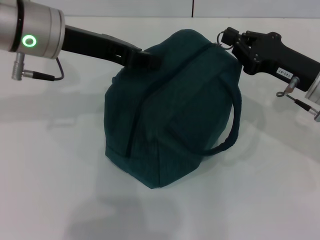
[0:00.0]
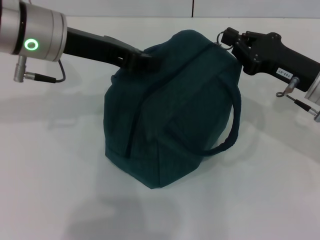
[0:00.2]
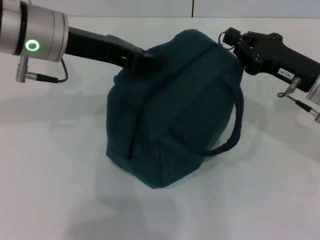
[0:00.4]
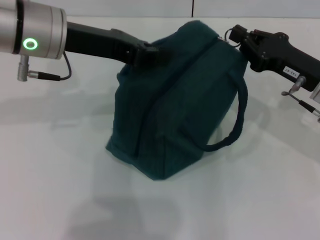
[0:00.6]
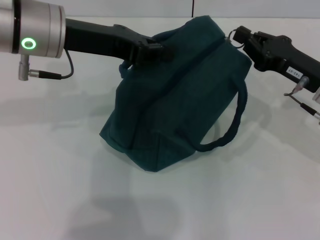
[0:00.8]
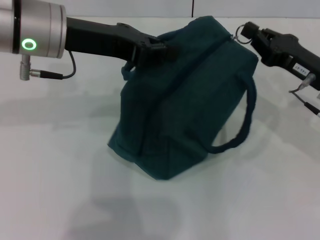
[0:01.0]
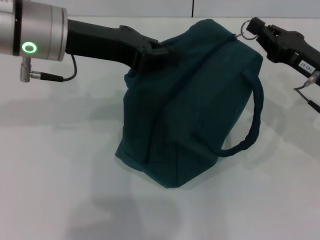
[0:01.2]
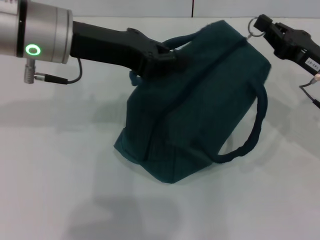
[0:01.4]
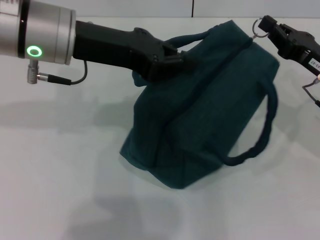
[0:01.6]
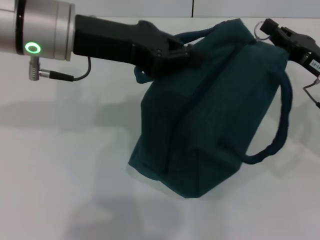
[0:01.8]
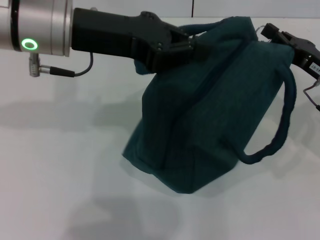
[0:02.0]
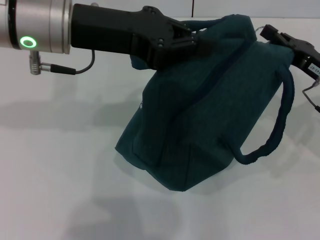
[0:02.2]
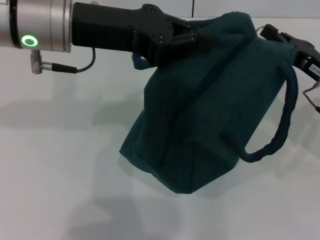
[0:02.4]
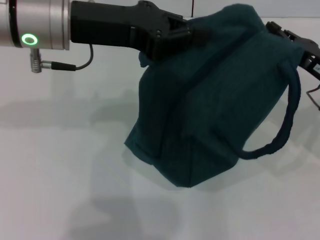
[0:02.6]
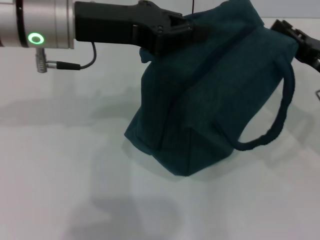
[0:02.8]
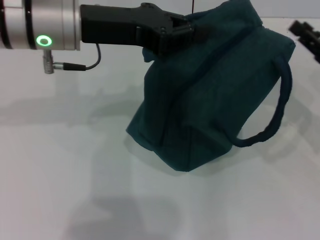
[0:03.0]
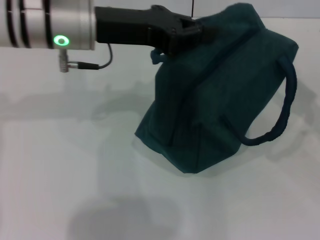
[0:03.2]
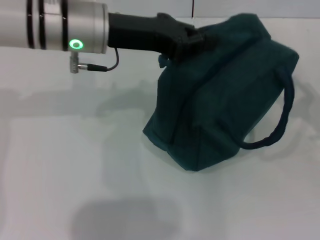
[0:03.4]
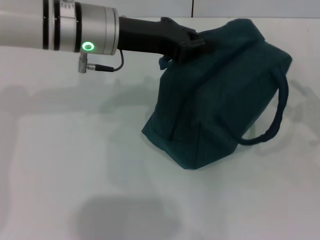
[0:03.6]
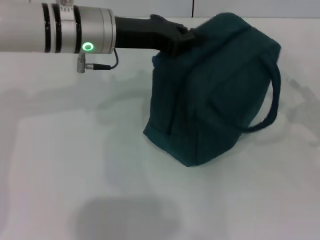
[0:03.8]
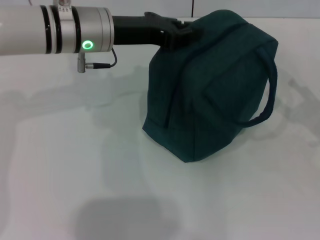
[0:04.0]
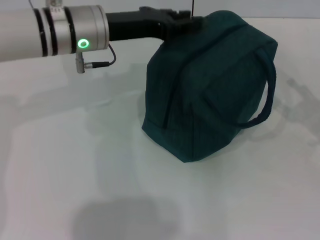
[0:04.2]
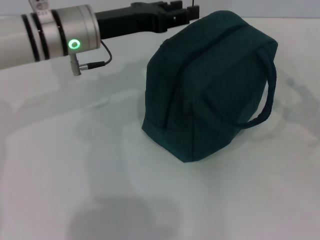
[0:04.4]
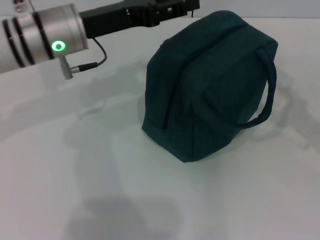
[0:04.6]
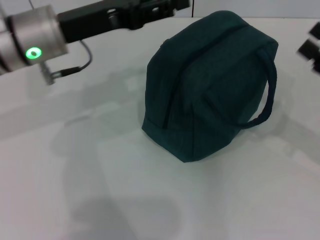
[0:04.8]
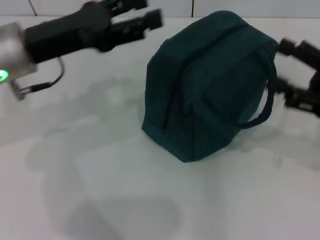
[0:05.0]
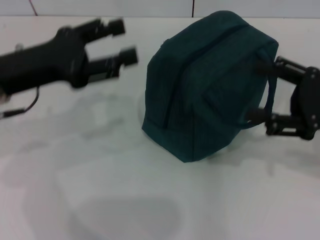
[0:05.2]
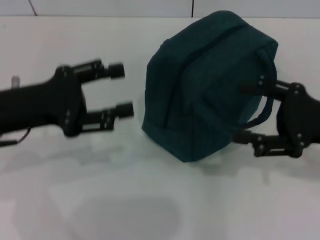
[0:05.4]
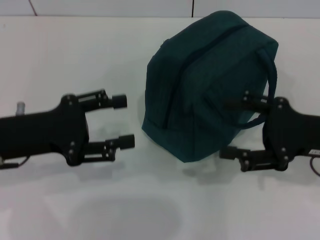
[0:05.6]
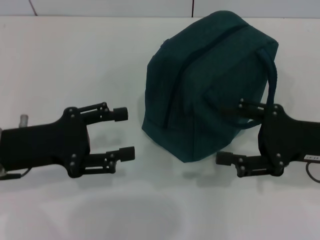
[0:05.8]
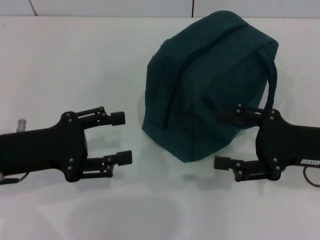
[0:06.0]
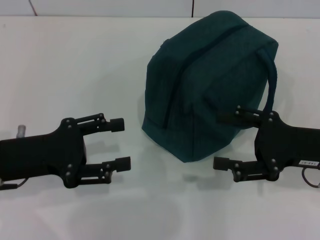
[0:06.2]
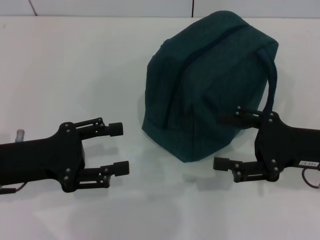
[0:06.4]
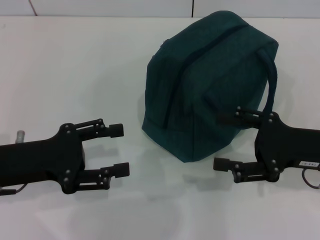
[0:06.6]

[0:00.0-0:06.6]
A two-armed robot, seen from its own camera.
Step, 0:00.0 to 0:02.8: Zip up the lunch bag with your right hand.
Step, 0:03.0 to 0:04.2: Hold the lunch bag with your left hand.
0:01.6 to 0:03.2: The right gripper goes roughly 5 cm to the right, and opens its fingers.
0:03.2 to 0:05.0: The right gripper shifts by roughly 5 cm, and opens up, while the left gripper moves to the left, roughly 5 cm, and opens.
0:05.0 to 0:06.6: The left gripper heads backward and downward, covering some 10 cm. Meanwhile the right gripper shifts by approximately 5 cm.

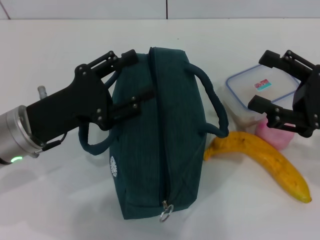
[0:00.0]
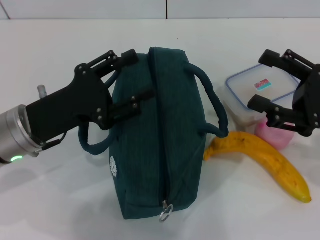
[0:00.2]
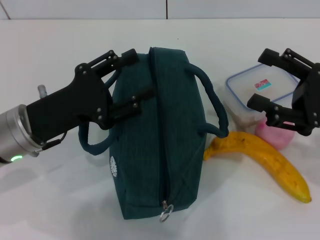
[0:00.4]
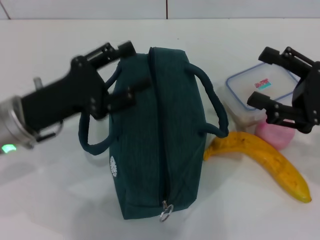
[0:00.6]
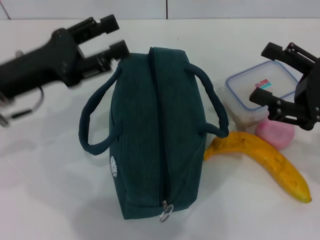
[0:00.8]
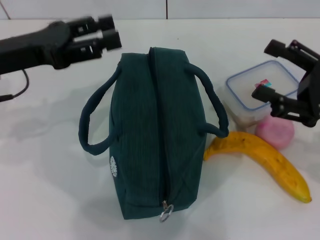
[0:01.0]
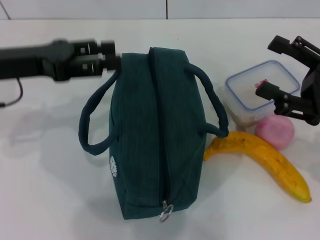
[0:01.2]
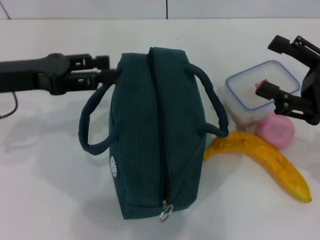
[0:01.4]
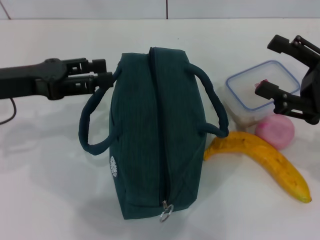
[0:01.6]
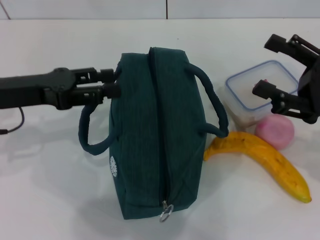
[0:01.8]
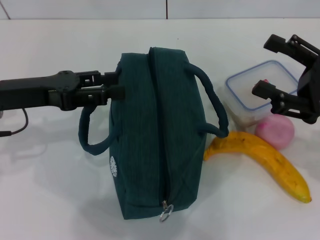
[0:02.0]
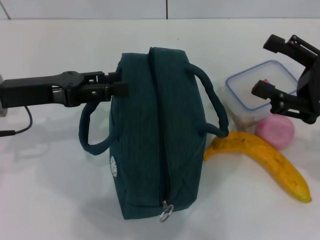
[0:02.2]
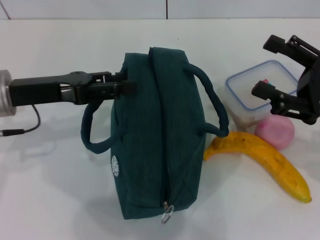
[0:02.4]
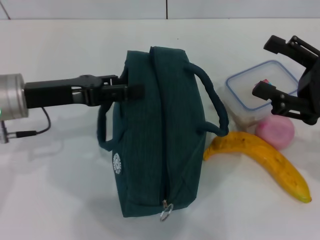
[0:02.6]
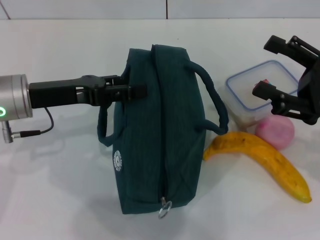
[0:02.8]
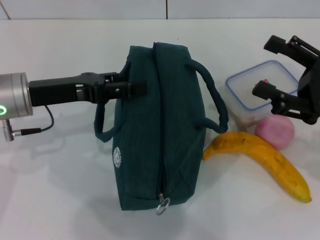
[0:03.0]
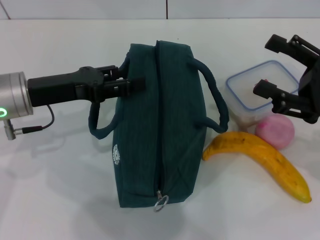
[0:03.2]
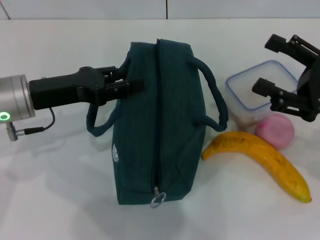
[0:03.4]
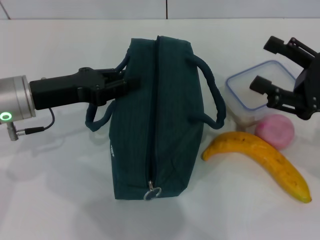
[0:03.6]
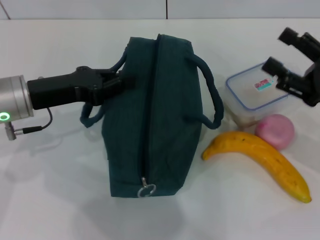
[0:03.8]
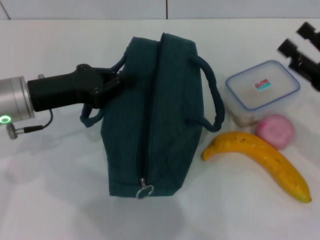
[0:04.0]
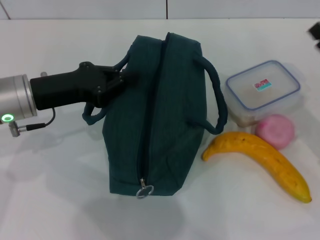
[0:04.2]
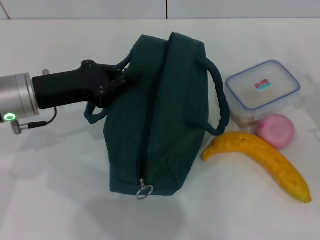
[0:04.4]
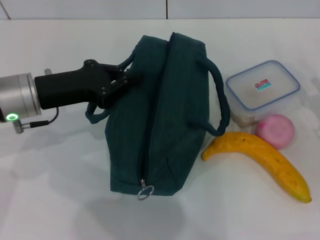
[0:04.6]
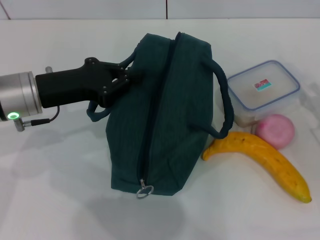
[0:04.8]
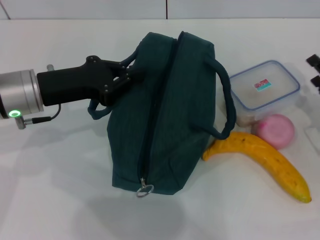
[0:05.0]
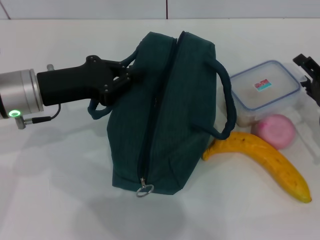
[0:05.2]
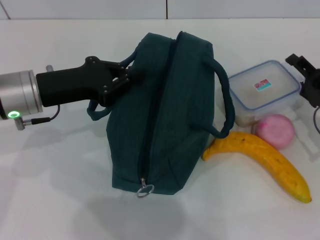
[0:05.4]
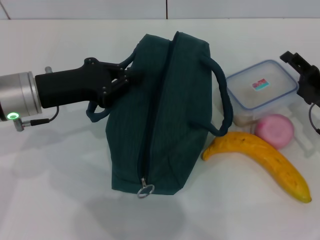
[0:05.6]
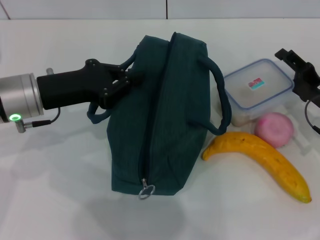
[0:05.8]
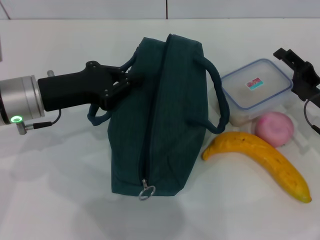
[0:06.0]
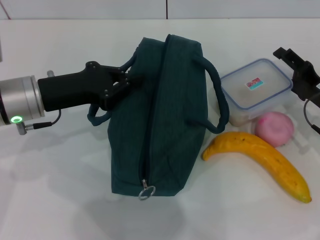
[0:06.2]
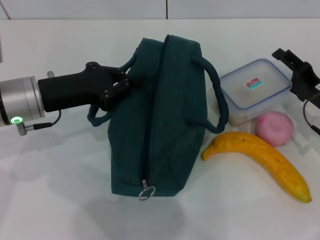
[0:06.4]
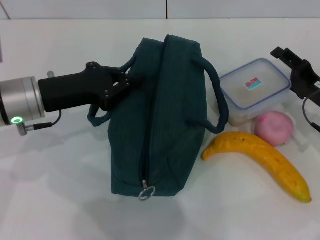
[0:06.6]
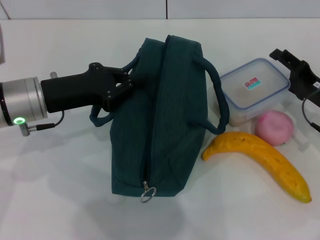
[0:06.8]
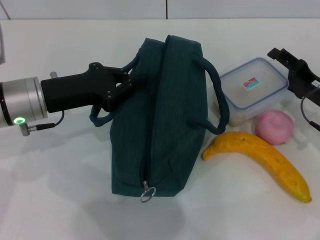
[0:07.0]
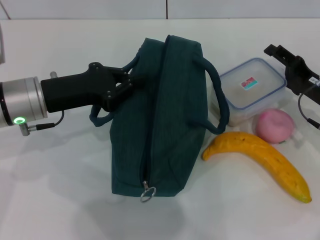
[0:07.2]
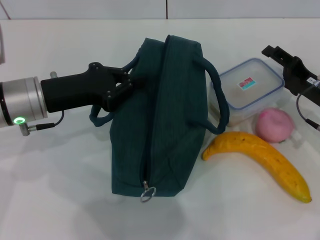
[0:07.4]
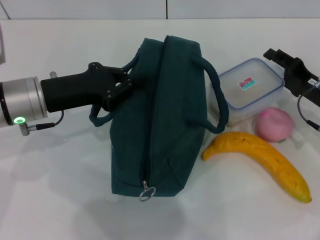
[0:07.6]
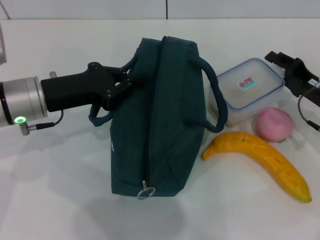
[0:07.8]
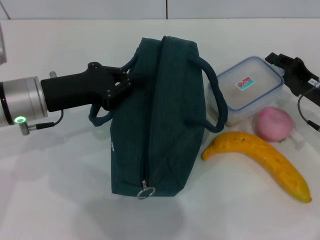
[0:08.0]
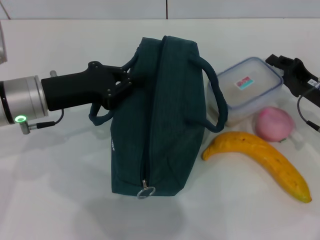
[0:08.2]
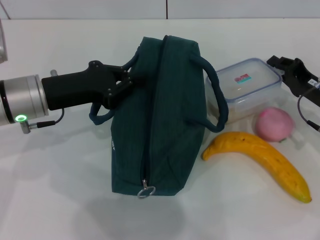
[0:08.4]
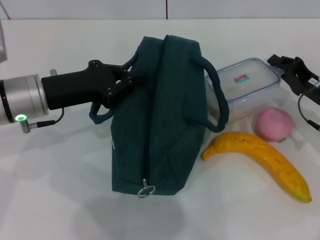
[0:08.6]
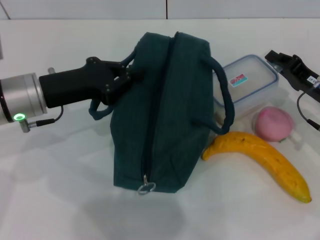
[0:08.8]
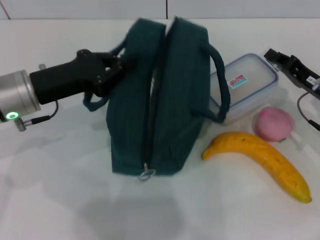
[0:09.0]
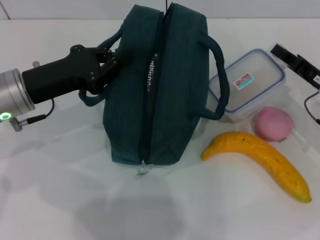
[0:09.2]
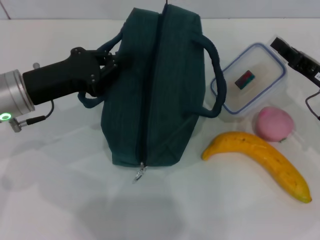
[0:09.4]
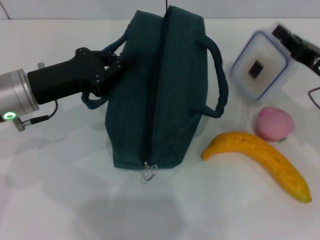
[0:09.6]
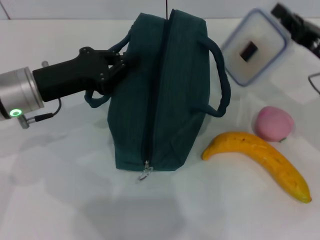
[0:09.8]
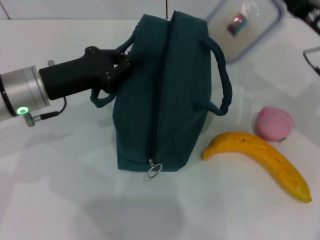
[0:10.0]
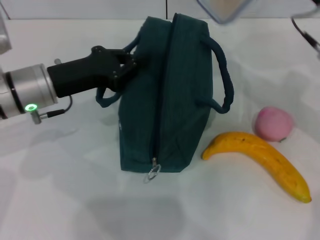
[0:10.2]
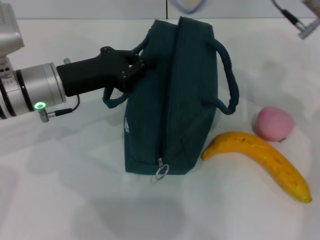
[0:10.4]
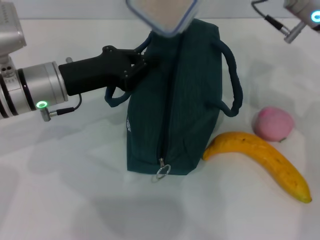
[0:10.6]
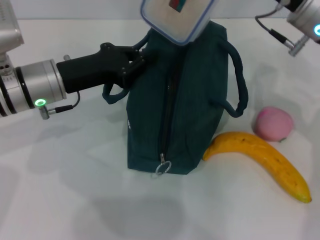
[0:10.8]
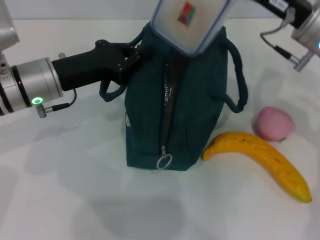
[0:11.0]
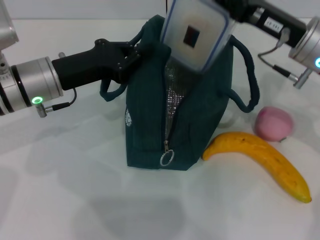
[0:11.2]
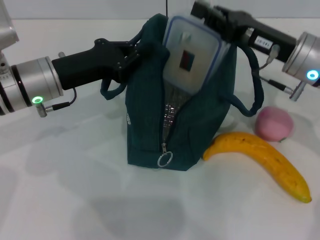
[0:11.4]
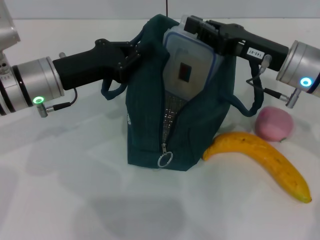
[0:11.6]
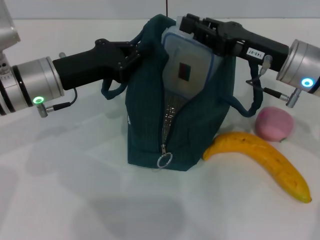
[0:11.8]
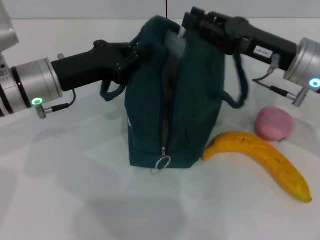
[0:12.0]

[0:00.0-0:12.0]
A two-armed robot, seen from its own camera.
Step, 0:00.0 to 0:04.2: Hold the lunch bag with your left hand.
Step, 0:04.6 to 0:08.4: Pick up the lunch box with your right hand.
0:00.0 to 0:01.6: The left gripper goes roughly 10 cm to the left and upward.
0:01.6 to 0:03.0: The left gripper moves about 5 cm.
0:03.0 to 0:04.4: The right gripper heads downward, covering about 5 cm; the left gripper closes.
0:04.4 to 0:06.0: The right gripper goes about 5 cm forward.
0:06.0 to 0:07.6: The grippers make only small movements.
0:07.6 to 0:09.0: The right gripper closes up.
0:09.0 to 0:10.4: The right gripper is displaced upward and to the left by roughly 15 cm.
0:10.4 to 0:12.0: The right gripper goes some 5 cm downward.

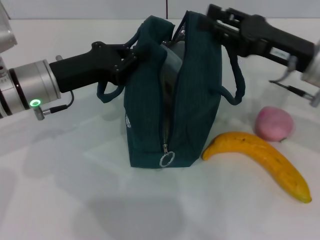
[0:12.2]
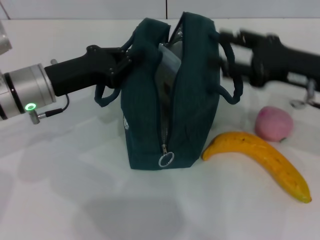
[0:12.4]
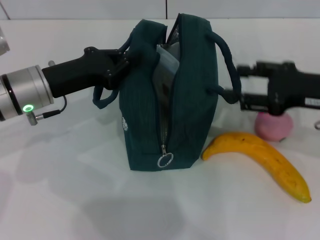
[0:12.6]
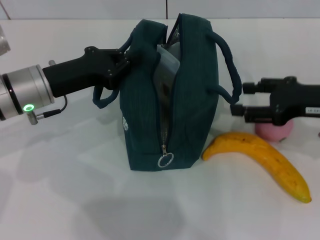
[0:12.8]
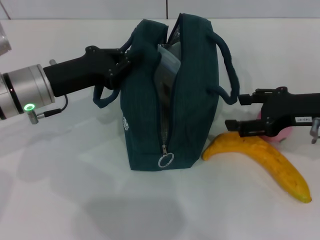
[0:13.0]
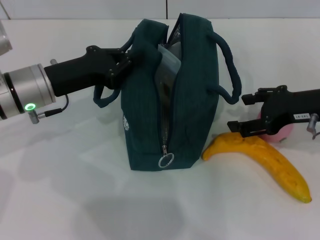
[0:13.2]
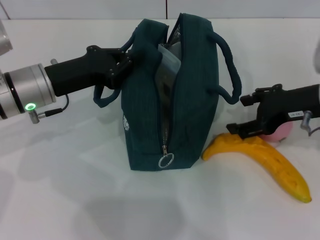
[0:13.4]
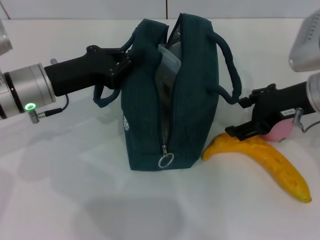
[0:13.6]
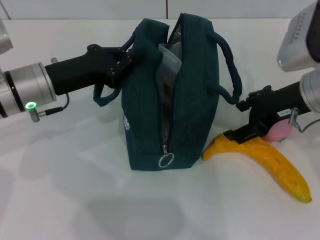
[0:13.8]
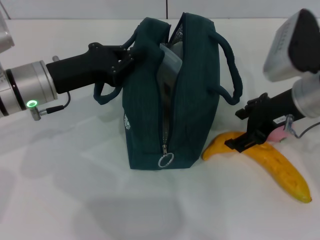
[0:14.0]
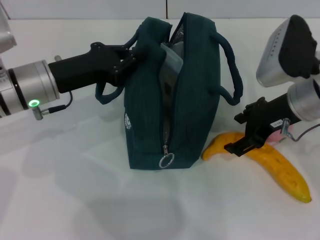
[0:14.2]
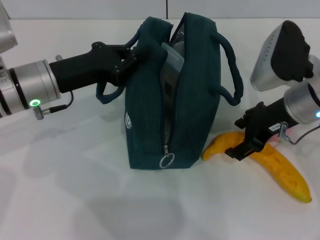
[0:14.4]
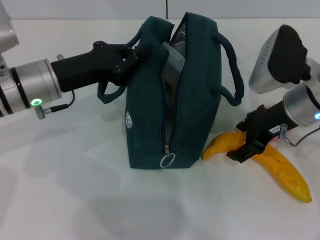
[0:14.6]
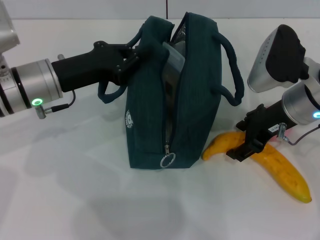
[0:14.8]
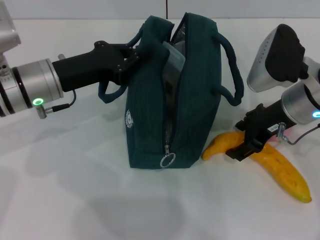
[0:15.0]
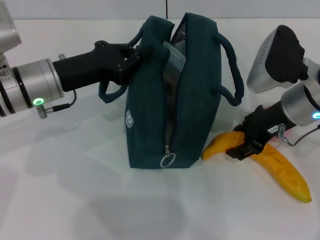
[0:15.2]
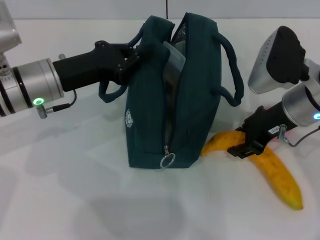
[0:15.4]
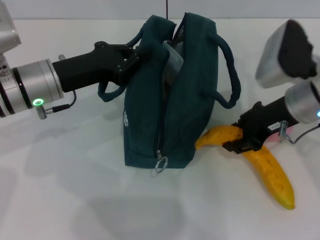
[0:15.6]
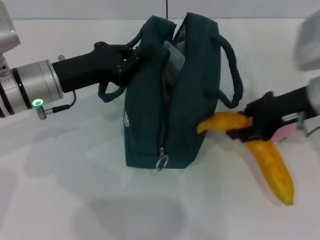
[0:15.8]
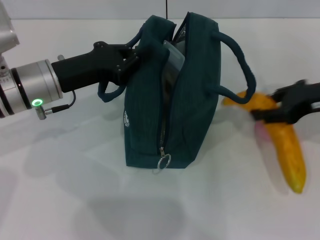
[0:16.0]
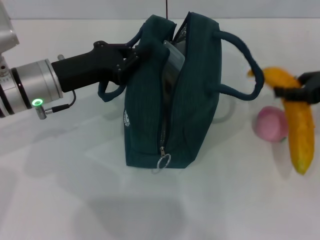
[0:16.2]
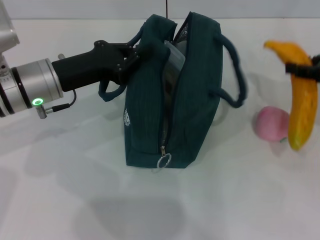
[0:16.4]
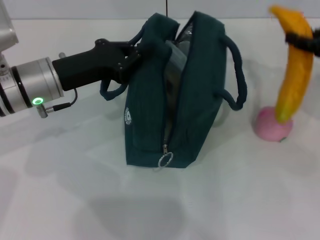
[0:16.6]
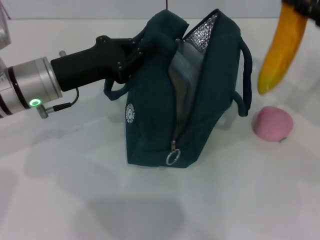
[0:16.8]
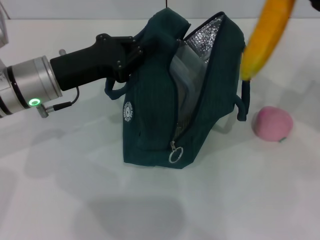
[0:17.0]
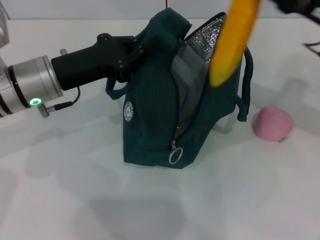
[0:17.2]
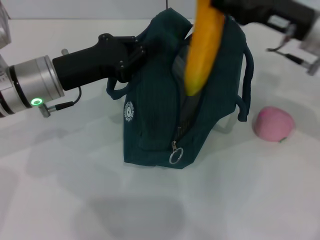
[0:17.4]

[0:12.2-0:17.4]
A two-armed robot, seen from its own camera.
Step, 0:12.4 to 0:15.2: Take the banana with your right hand.
0:12.2 to 0:14.0: The right gripper opens.
0:14.0 to 0:15.6: The right gripper closes up.
0:15.6 to 0:17.4: The right gripper travels to the right and back again, approximately 15 cm each way.
